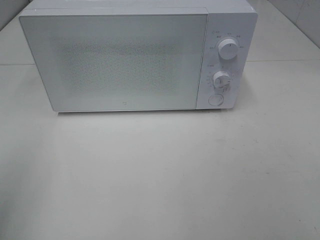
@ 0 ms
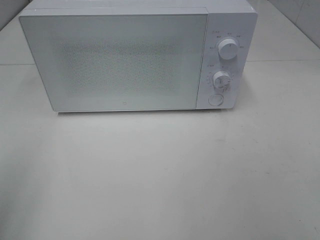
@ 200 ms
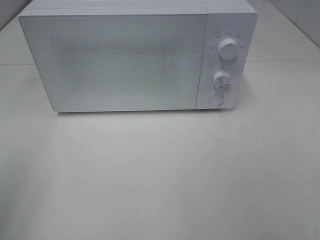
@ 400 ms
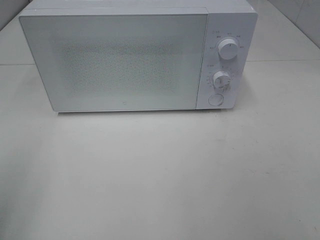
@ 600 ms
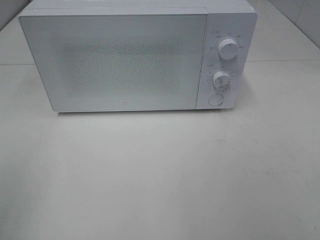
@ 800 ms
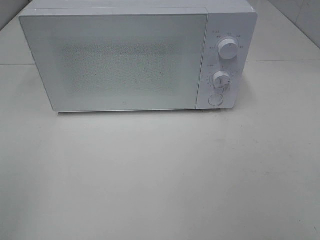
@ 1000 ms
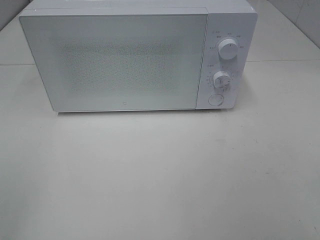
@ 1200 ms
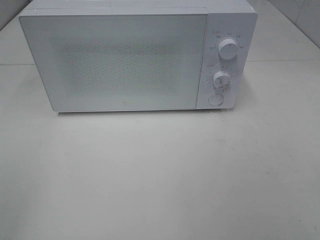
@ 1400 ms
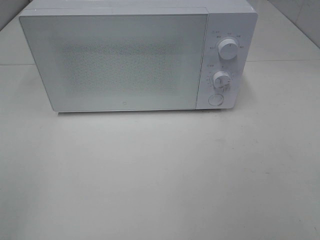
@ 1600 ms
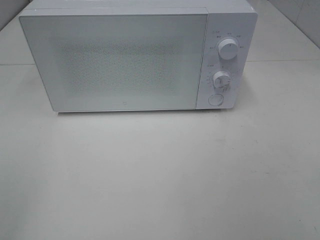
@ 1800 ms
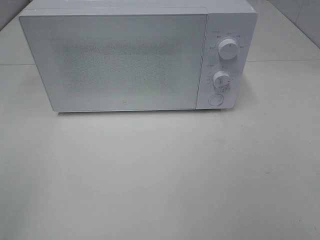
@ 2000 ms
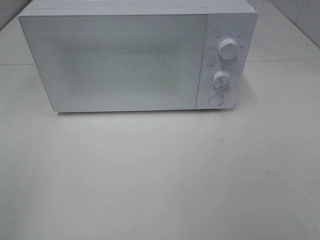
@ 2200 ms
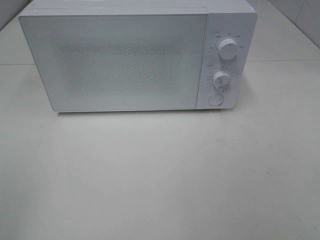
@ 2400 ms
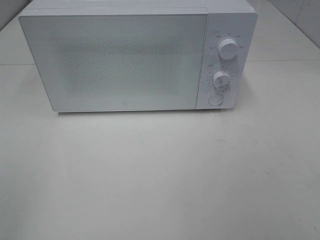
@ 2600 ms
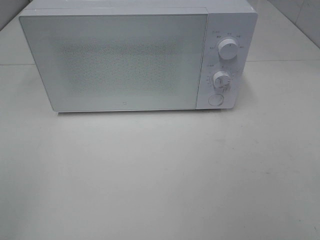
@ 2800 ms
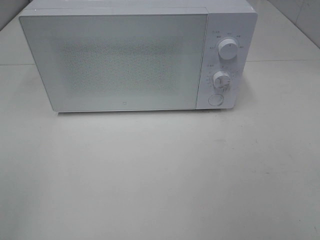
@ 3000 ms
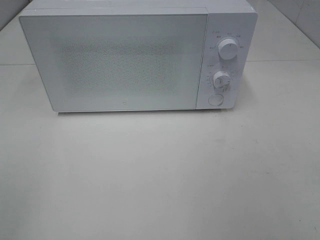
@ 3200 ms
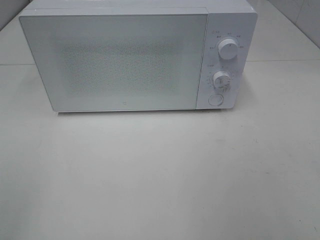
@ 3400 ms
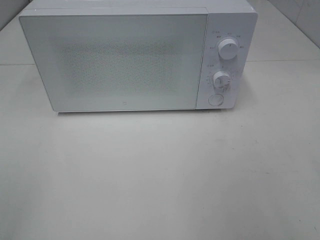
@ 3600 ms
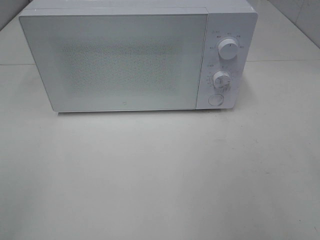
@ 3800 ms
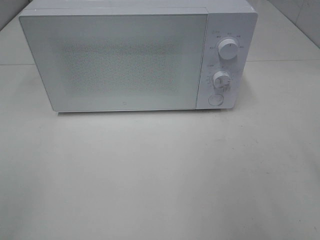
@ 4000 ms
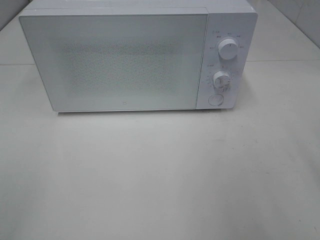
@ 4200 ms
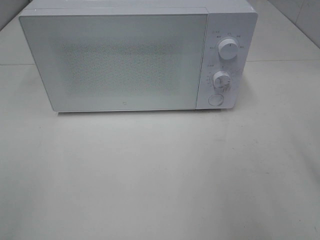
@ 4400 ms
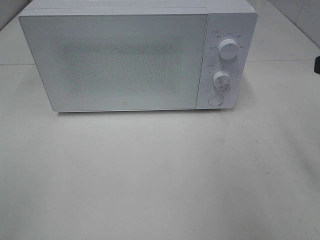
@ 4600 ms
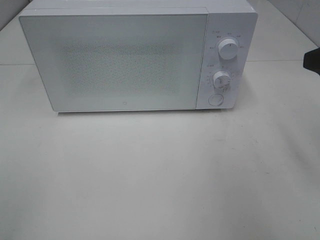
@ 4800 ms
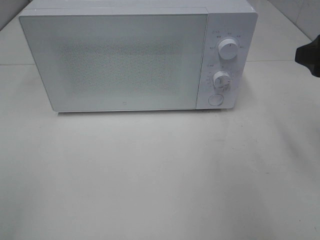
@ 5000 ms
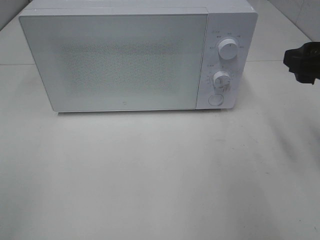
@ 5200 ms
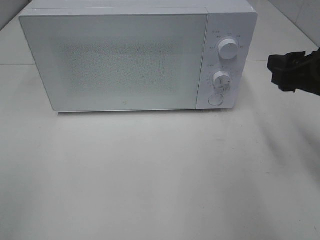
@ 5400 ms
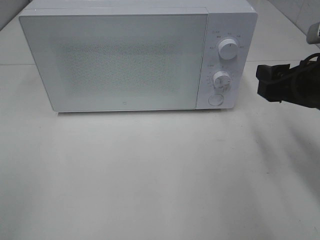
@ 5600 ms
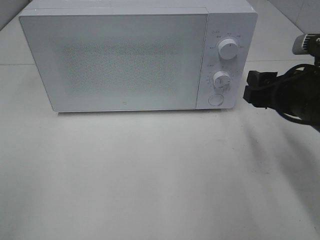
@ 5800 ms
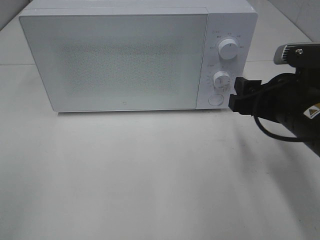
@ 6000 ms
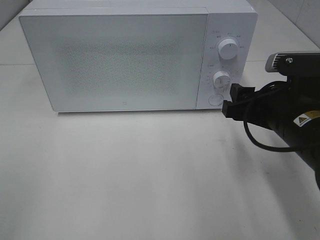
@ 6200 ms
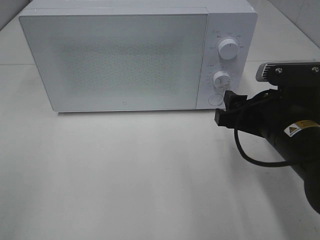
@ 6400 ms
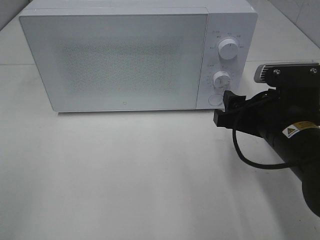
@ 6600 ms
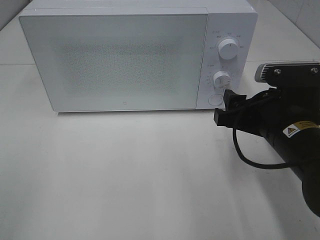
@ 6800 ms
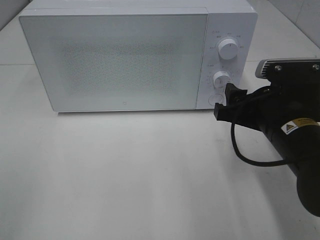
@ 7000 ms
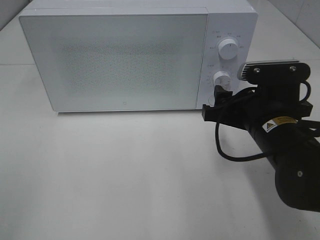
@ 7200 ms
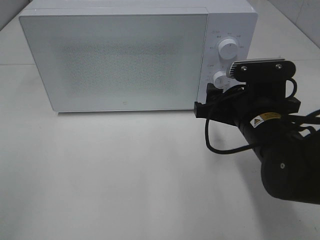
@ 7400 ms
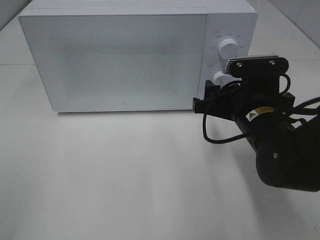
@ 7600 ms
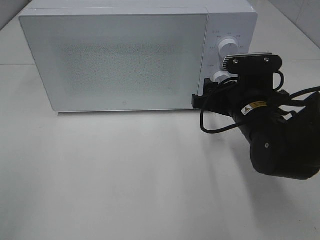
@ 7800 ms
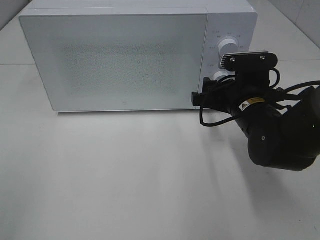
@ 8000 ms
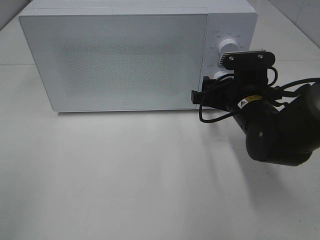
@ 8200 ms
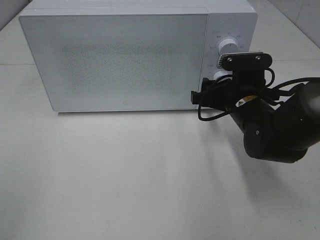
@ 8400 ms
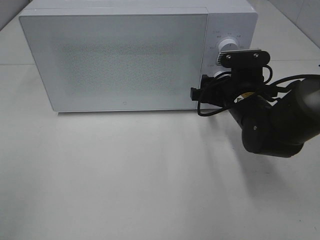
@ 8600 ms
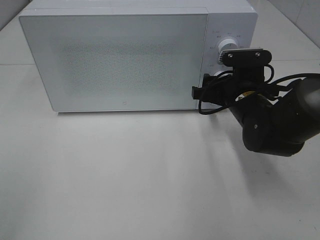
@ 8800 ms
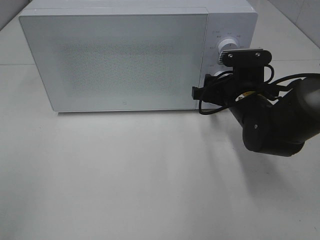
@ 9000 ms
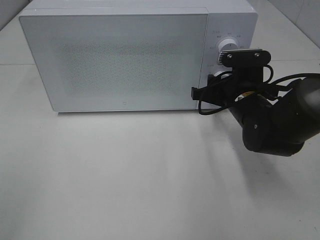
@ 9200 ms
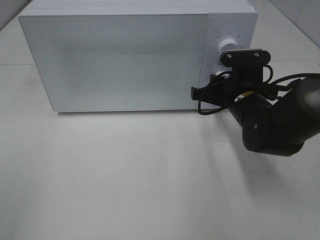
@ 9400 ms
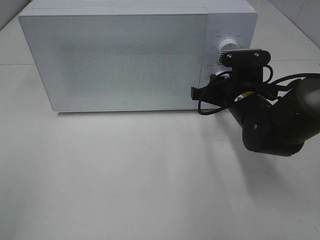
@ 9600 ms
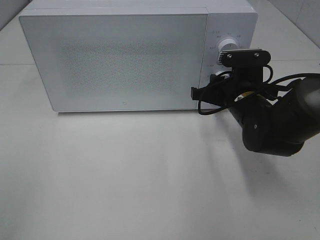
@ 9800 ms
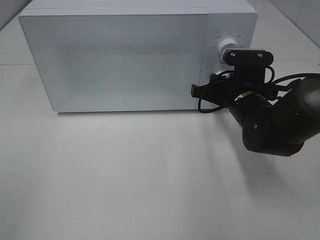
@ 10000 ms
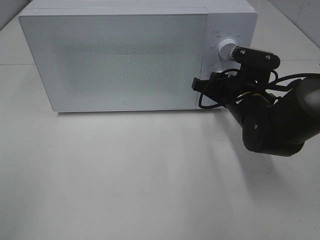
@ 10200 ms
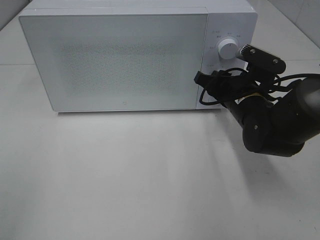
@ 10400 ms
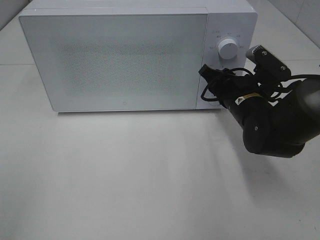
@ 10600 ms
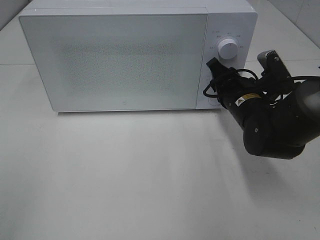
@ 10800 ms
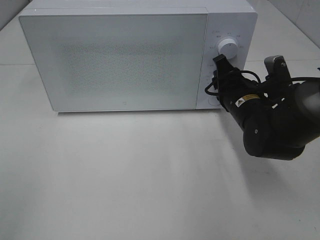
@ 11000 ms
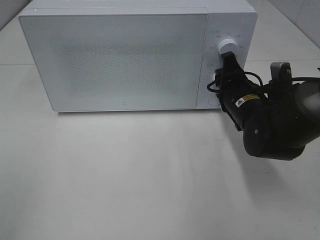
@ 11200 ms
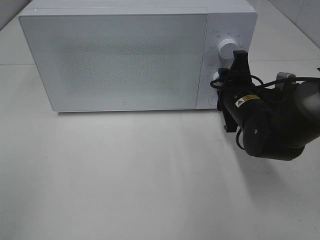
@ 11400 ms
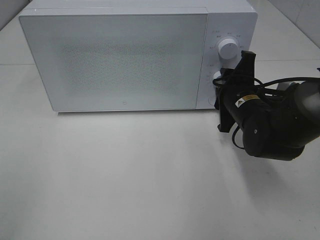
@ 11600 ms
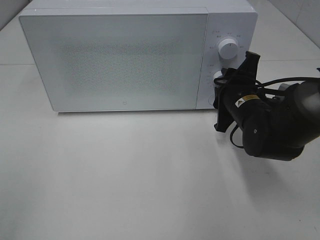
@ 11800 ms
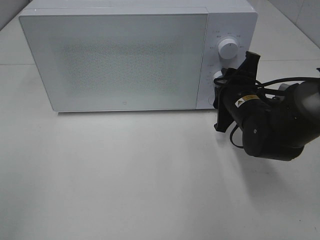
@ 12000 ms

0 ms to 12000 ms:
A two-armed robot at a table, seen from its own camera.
Task of the whole recording: Heat Sandwich.
4400 ms to 6000 ms: The right gripper travels downward, to the left and forward by some 15 cm.
6000 ms to 7600 ms: The right gripper changes place by about 5 cm.
7600 ms to 9000 ms: The right gripper moves forward, about 5 cm.

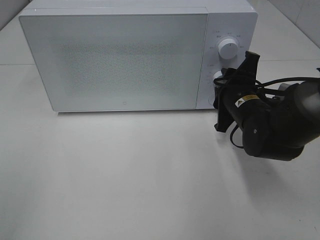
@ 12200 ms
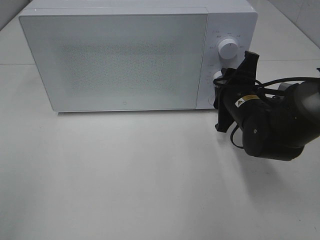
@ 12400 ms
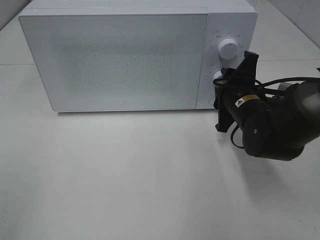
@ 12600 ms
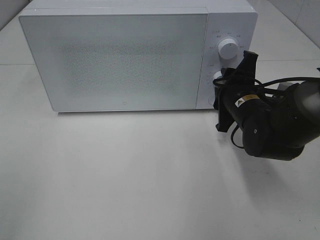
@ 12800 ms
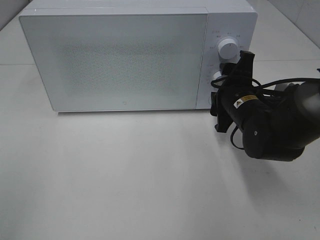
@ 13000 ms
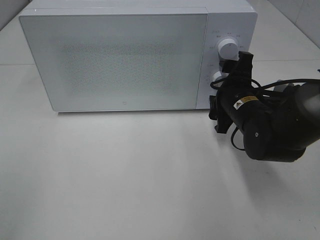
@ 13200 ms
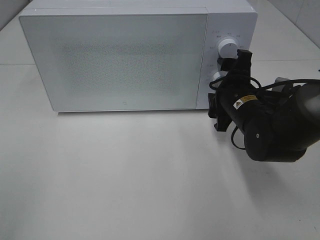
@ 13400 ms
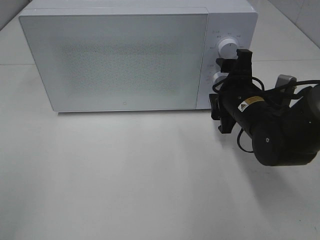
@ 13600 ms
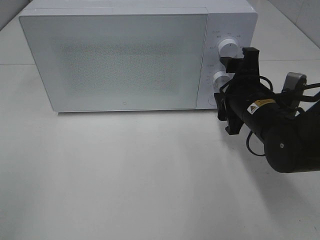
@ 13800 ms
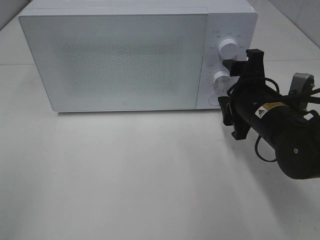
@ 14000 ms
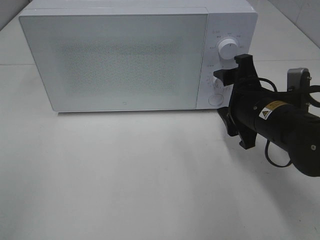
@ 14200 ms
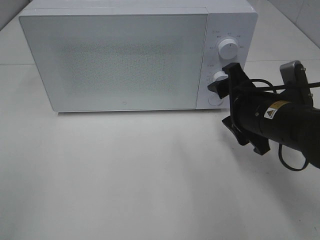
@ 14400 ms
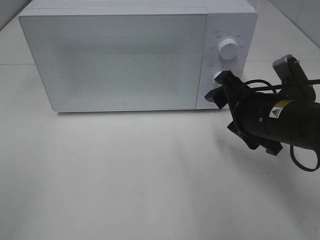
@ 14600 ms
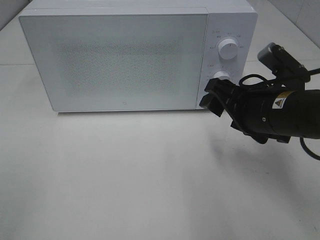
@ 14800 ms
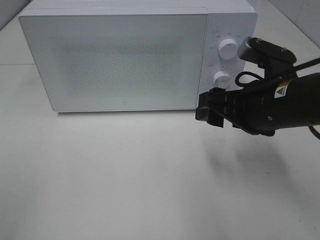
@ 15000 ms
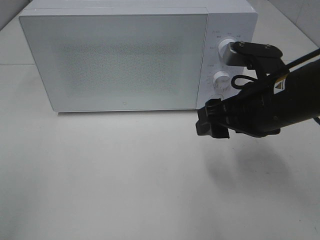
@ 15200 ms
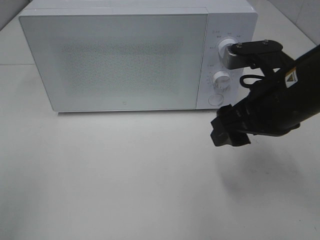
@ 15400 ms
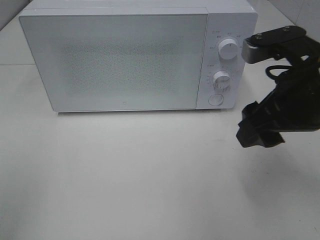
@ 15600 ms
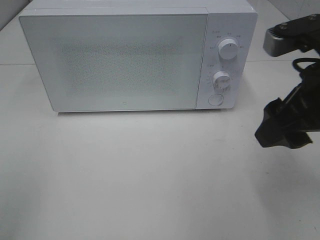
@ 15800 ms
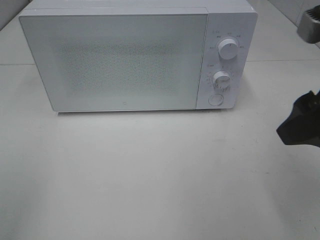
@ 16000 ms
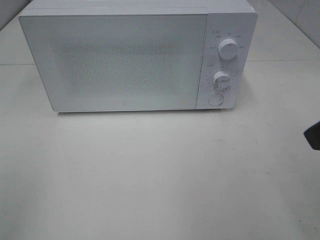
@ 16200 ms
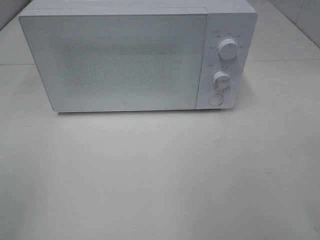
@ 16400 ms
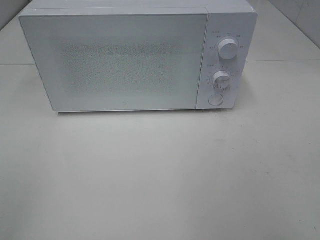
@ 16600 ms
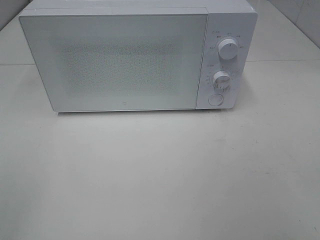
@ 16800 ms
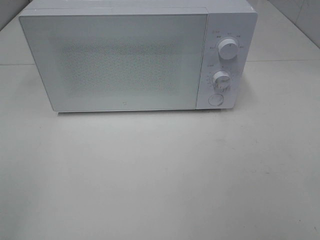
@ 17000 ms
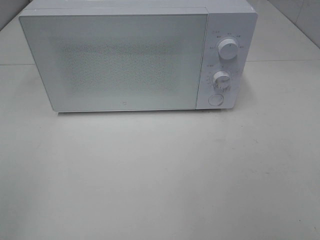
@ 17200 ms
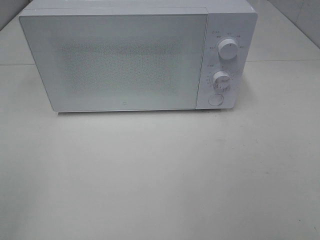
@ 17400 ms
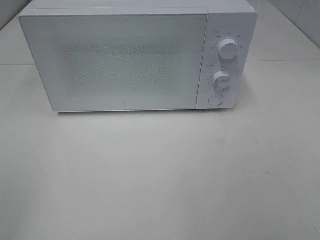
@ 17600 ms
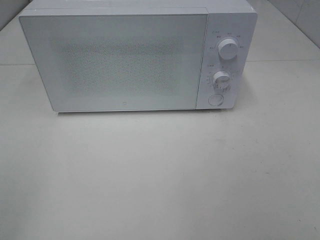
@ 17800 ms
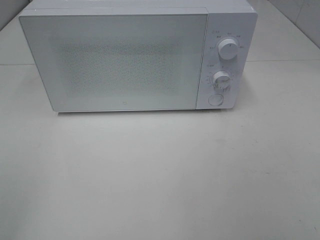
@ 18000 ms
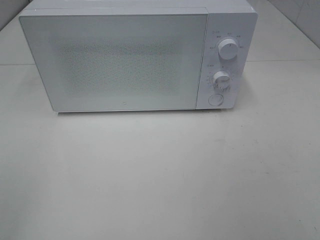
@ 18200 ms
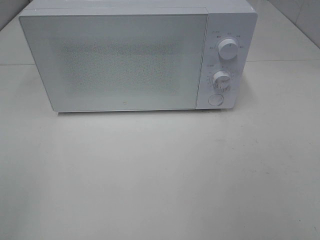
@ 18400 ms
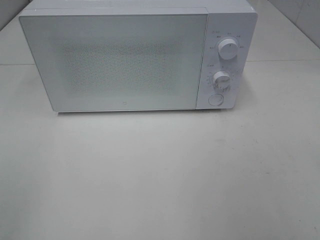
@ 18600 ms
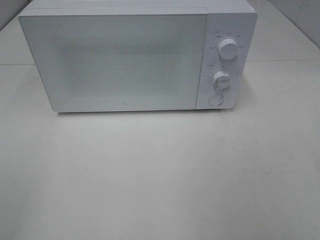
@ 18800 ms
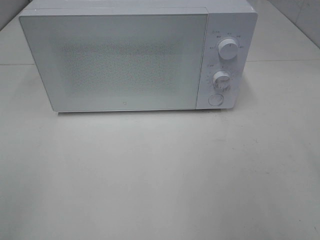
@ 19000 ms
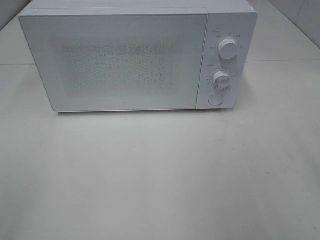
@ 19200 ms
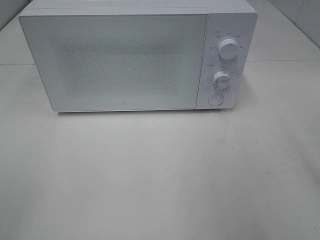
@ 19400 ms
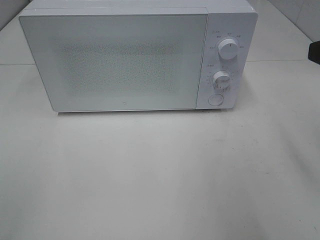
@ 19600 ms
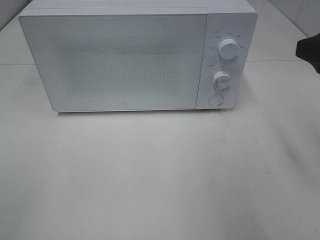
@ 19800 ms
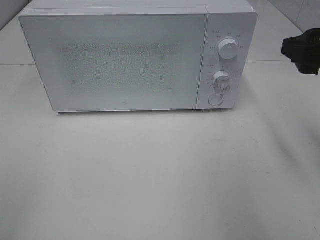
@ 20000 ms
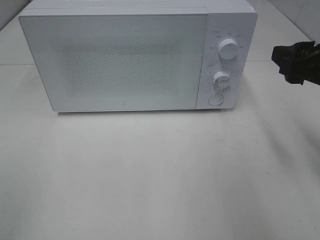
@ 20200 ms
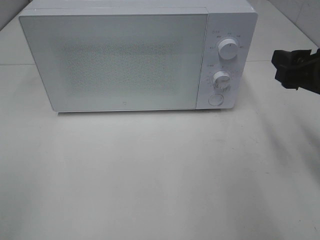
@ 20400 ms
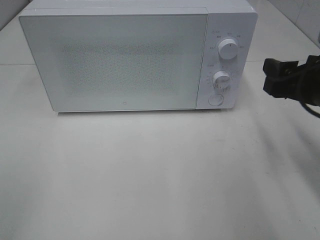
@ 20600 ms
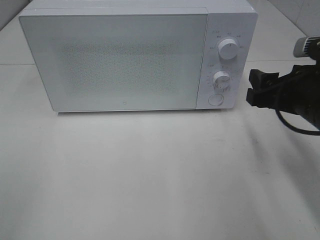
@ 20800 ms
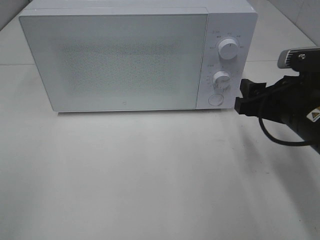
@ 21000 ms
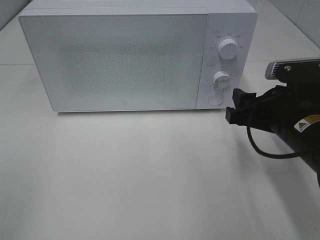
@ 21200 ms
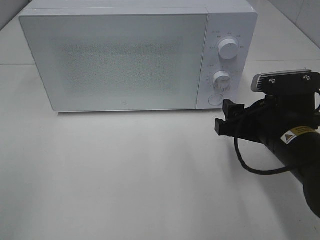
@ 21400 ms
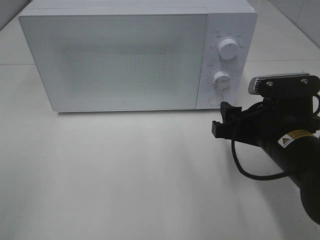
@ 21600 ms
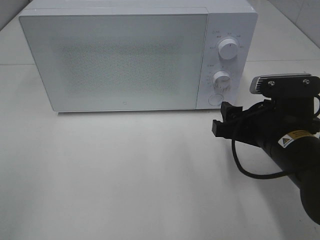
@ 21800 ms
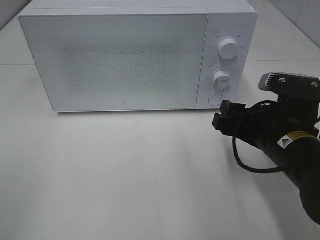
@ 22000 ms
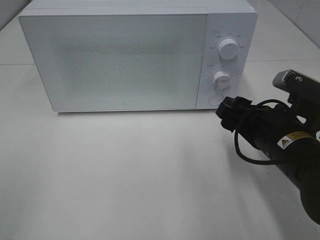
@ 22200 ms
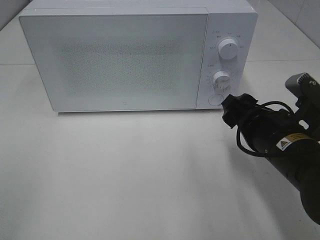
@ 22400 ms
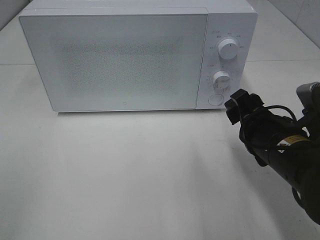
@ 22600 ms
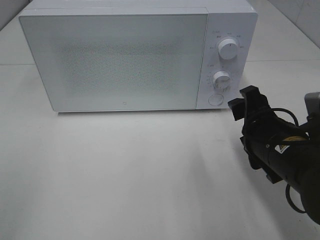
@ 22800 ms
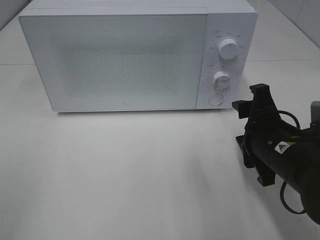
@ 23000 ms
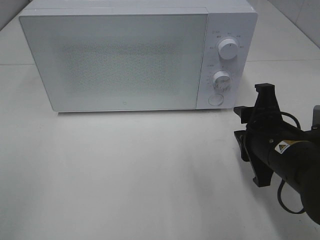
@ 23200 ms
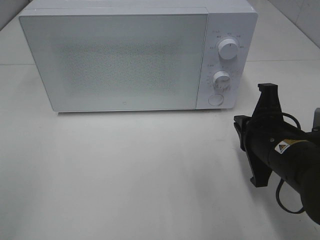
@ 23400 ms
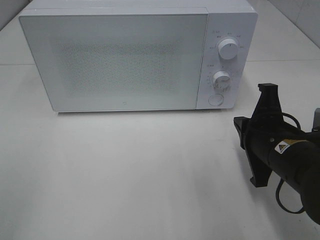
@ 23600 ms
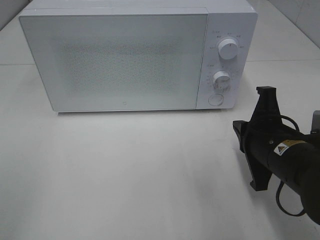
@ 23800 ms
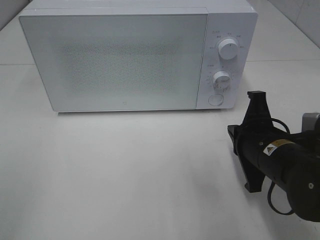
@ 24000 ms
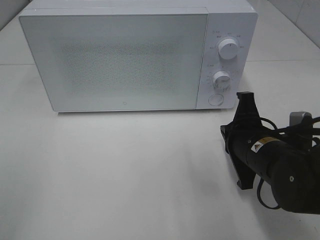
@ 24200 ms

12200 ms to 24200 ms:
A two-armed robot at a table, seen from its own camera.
Task of the whole recording: Heat Sandwich.
12200 ms to 13800 ms: The right gripper opens its fingers.
13800 ms to 15200 ms: The right gripper goes some 10 cm upward and backward.
15200 ms to 16600 ms: The right gripper travels backward, to the right and upward by about 25 cm.
18200 ms to 19800 ms: The right gripper moves forward, about 20 cm.
19800 ms to 21200 ms: The right gripper moves downward and to the left, about 15 cm.
22600 ms to 24200 ms: The right gripper closes.
